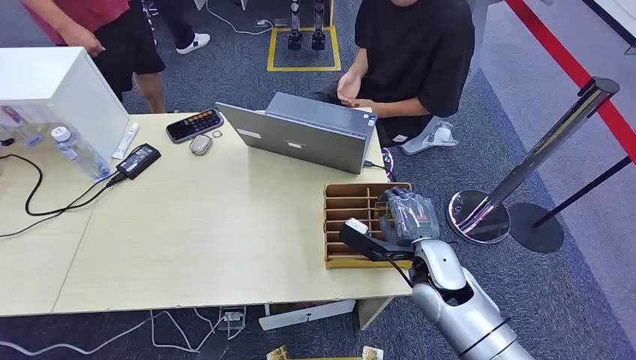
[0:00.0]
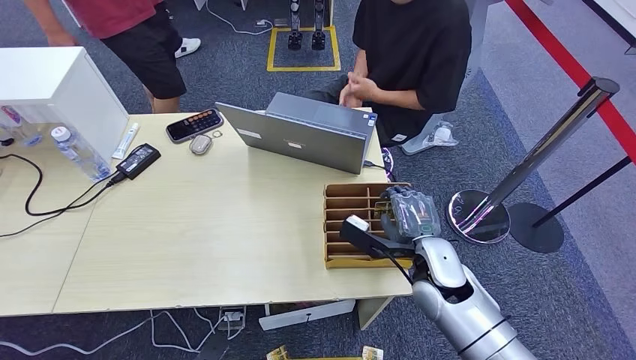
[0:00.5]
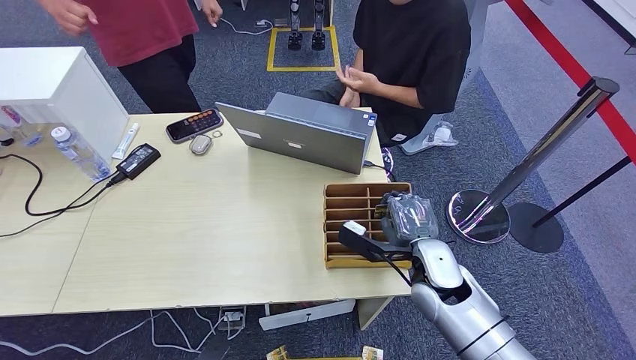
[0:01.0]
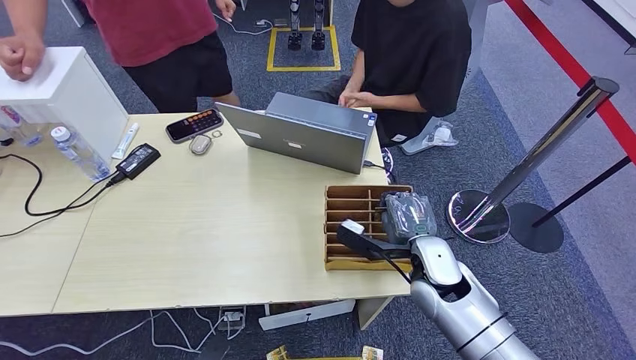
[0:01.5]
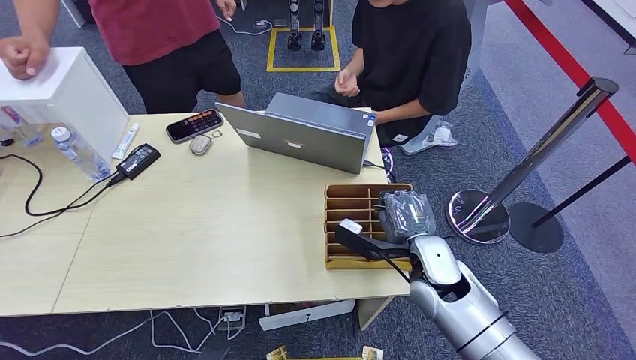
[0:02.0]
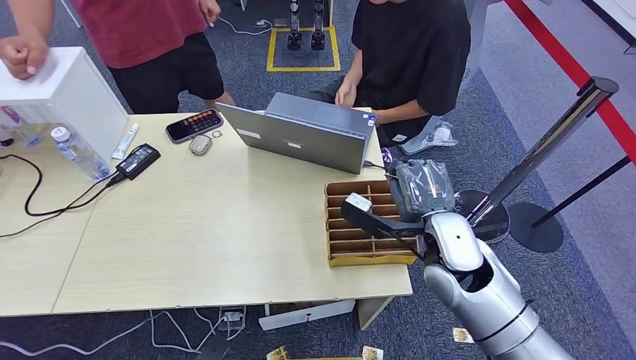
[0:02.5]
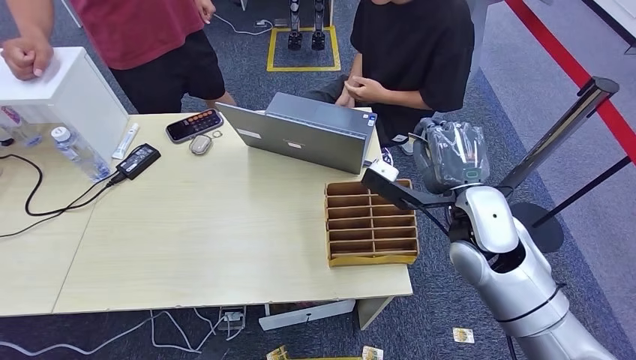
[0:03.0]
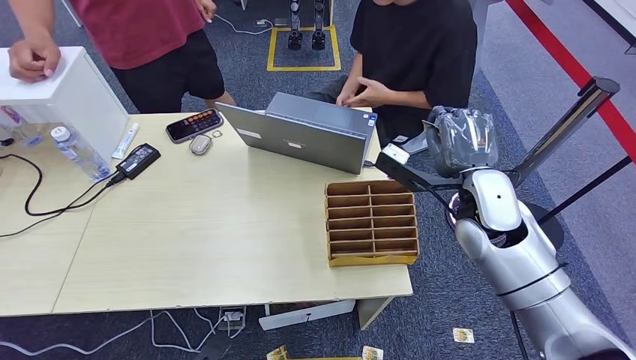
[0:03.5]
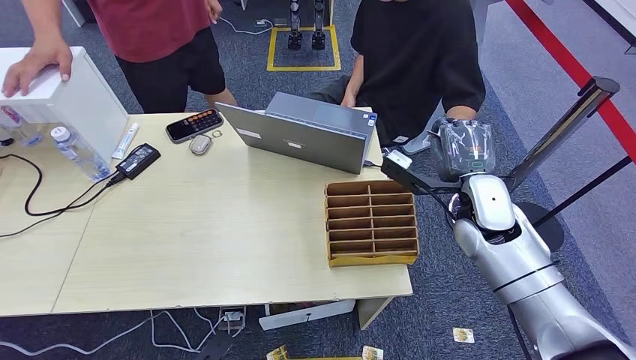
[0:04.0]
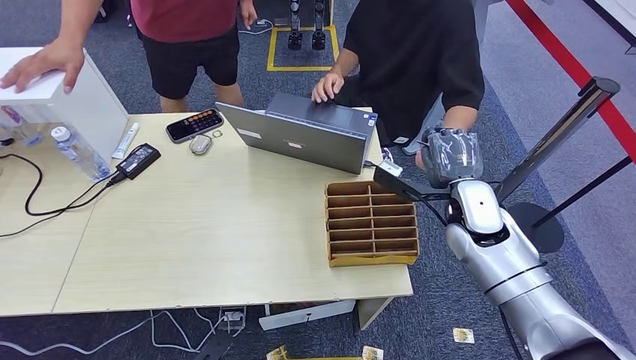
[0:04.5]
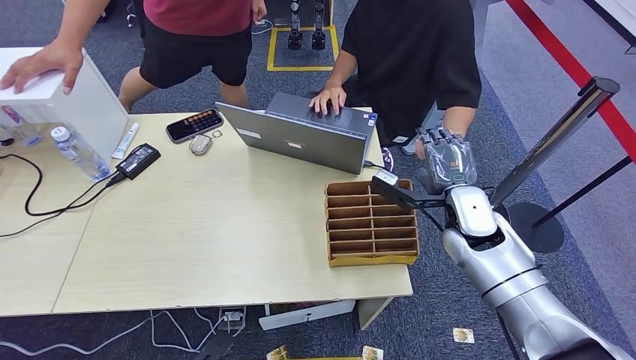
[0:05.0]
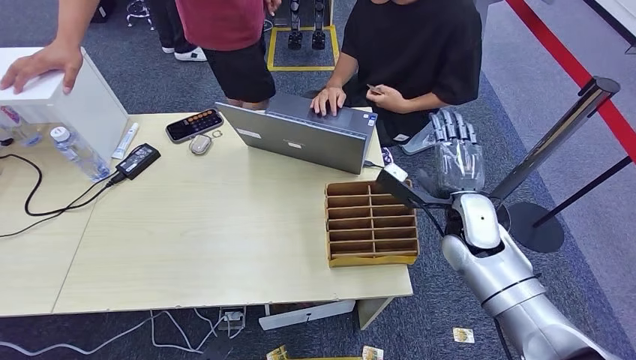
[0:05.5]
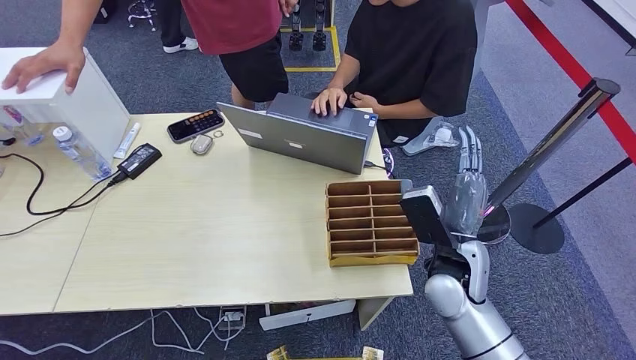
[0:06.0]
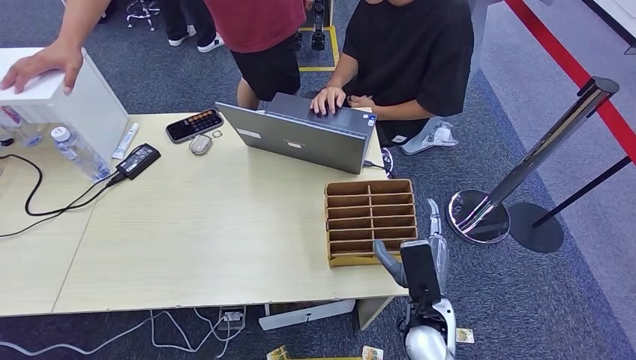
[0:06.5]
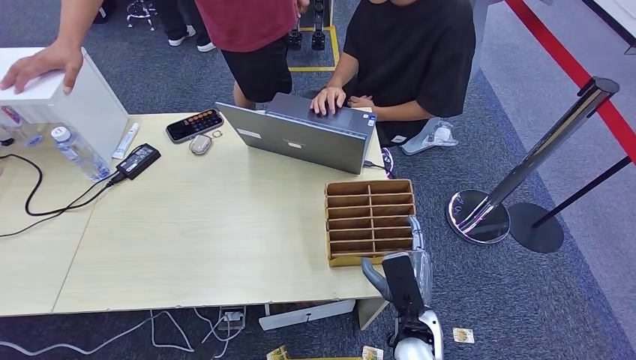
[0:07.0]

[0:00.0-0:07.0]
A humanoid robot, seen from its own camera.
Step, 0:00.0 to 0:02.5: Pick up the key card from the card box.
Step, 0:03.0 to 0:07.0: Hand the key card to the target.
0:02.0 to 0:03.5: The right hand travels upward and to the right by approximately 15 cm.
0:03.5 to 0:05.0: The right hand heads downward, covering approximately 5 cm.
0:05.0 to 0:07.0: The right hand heads backward, downward and to the left, covering some 25 cm.
